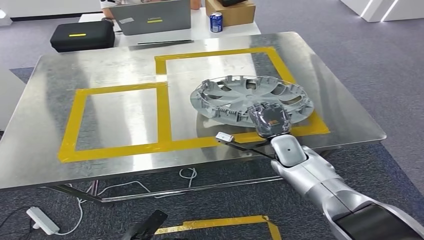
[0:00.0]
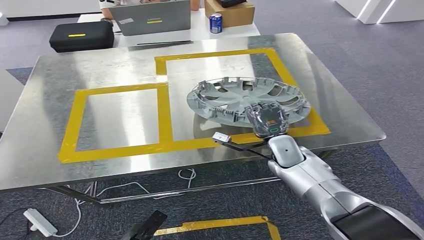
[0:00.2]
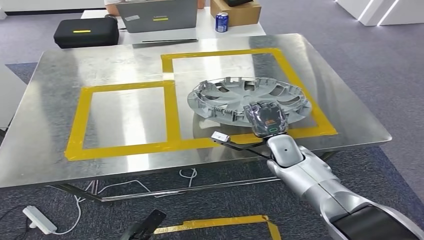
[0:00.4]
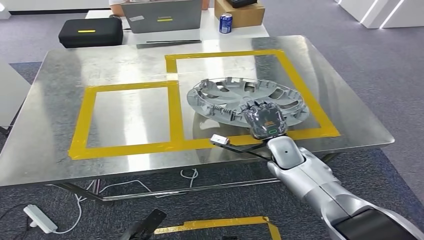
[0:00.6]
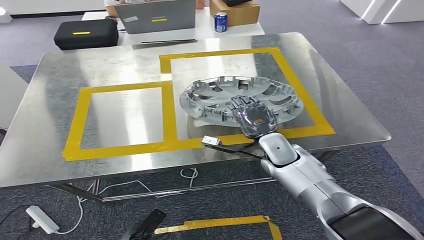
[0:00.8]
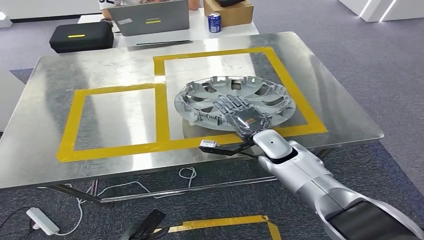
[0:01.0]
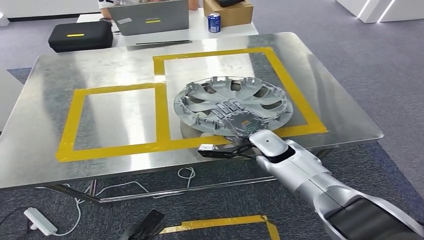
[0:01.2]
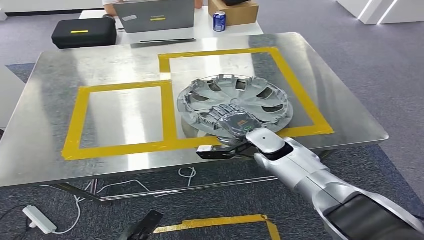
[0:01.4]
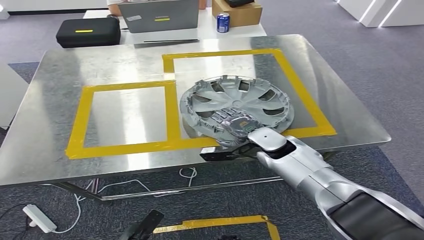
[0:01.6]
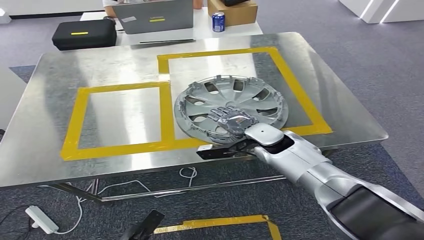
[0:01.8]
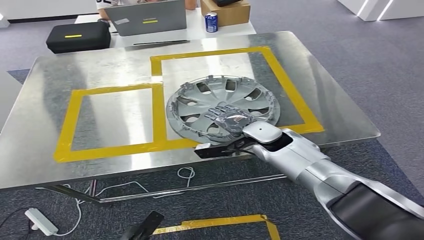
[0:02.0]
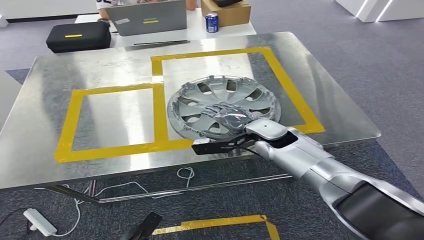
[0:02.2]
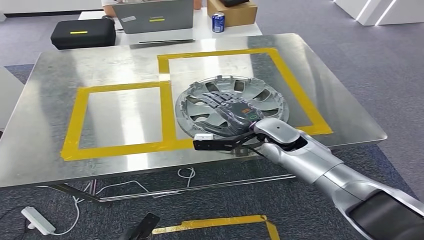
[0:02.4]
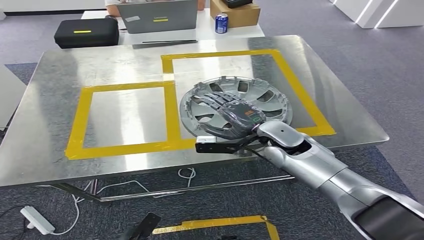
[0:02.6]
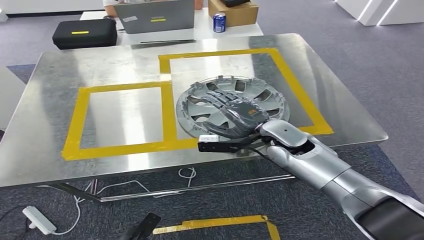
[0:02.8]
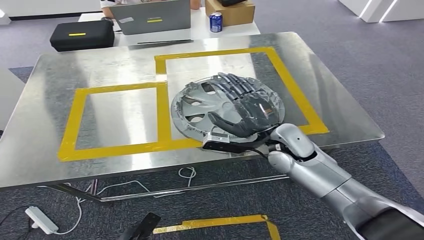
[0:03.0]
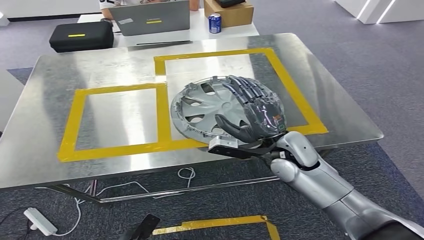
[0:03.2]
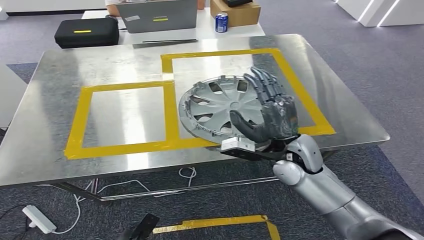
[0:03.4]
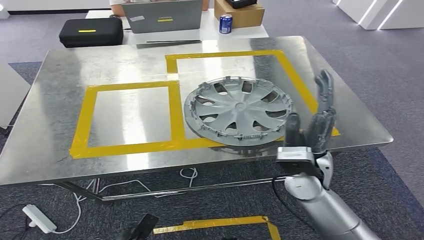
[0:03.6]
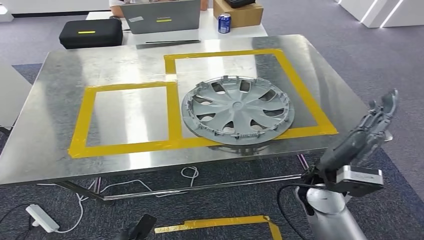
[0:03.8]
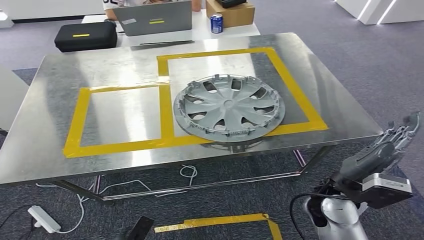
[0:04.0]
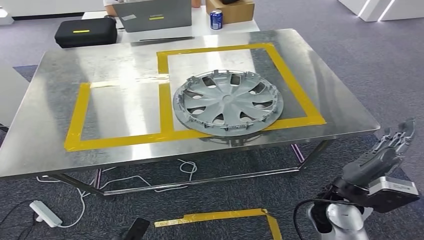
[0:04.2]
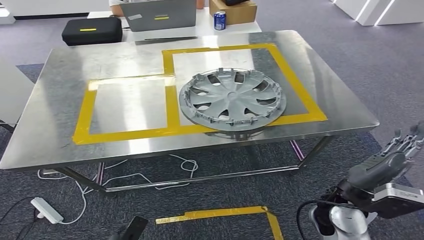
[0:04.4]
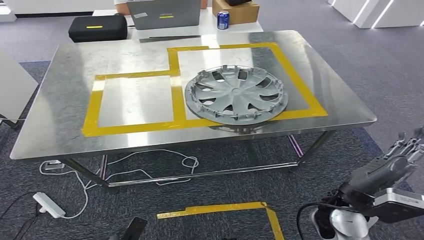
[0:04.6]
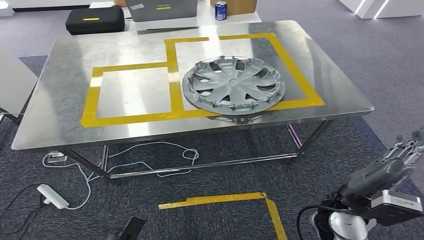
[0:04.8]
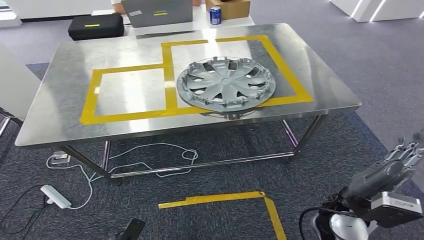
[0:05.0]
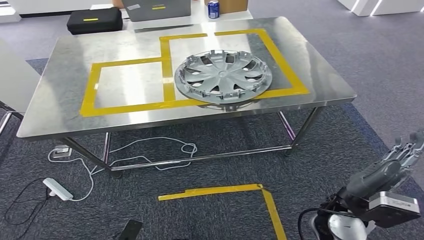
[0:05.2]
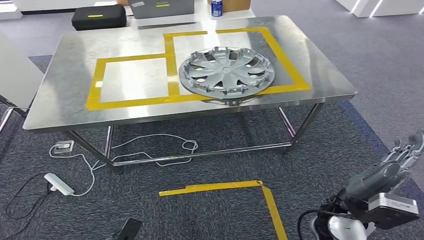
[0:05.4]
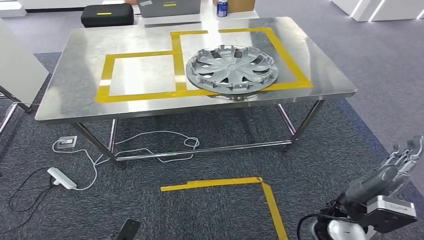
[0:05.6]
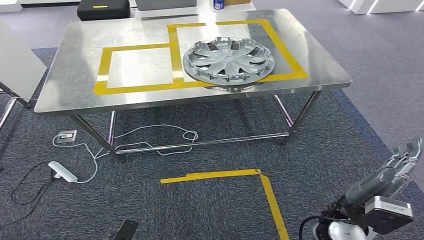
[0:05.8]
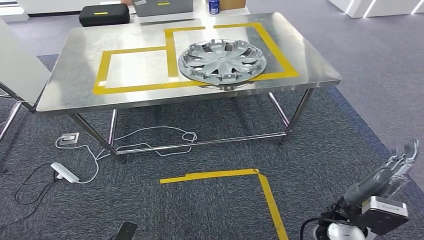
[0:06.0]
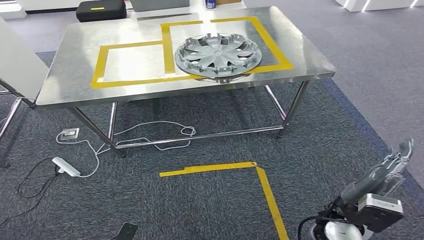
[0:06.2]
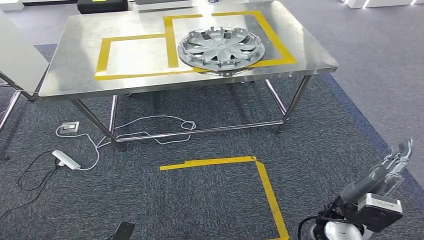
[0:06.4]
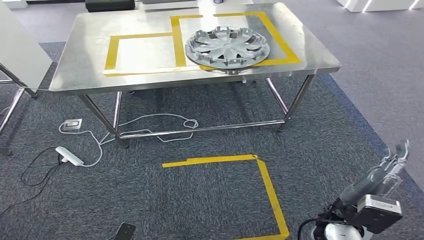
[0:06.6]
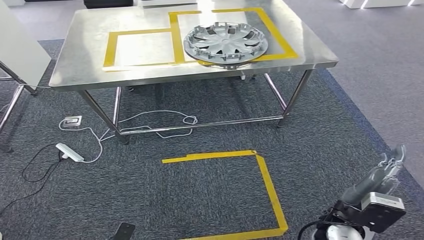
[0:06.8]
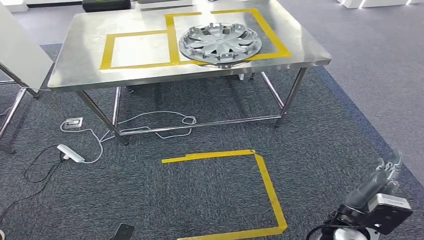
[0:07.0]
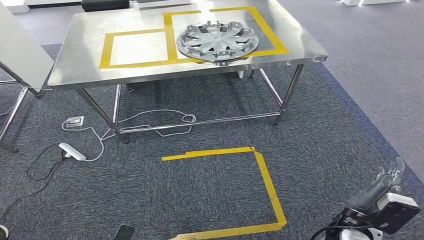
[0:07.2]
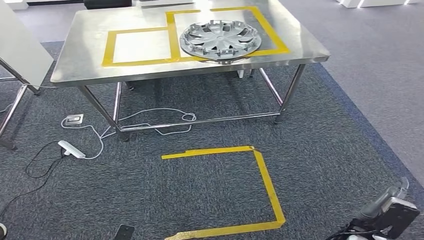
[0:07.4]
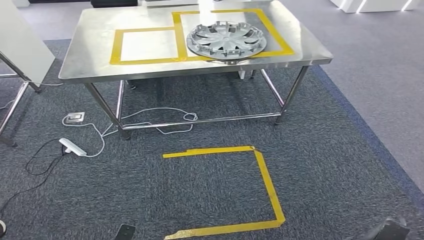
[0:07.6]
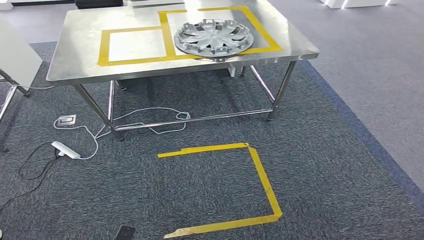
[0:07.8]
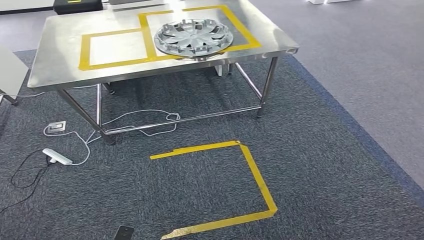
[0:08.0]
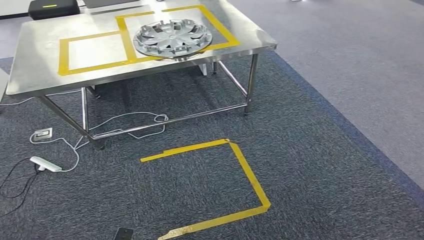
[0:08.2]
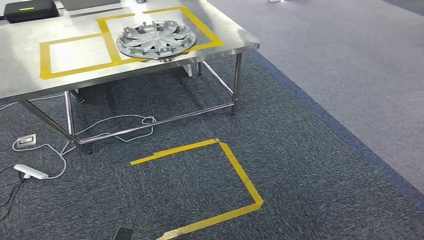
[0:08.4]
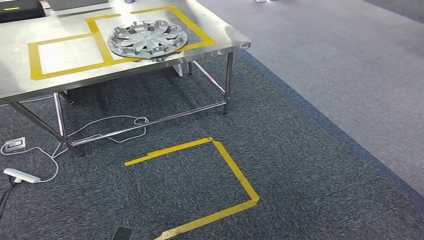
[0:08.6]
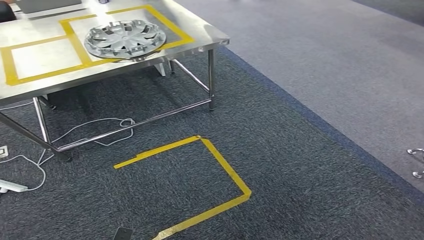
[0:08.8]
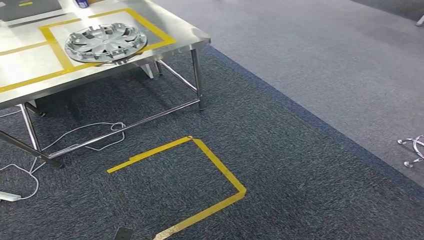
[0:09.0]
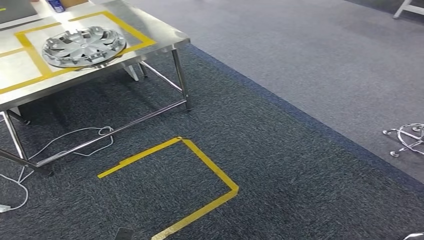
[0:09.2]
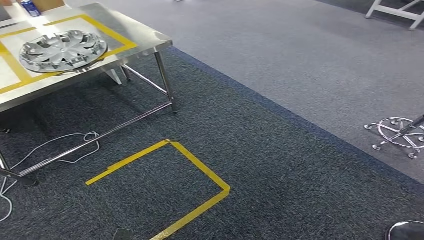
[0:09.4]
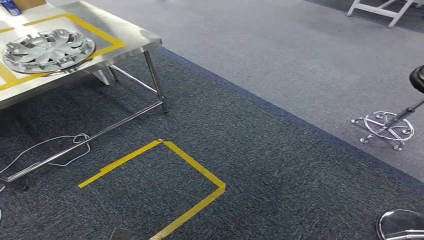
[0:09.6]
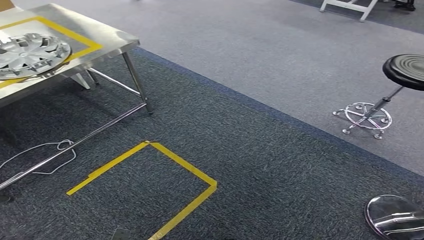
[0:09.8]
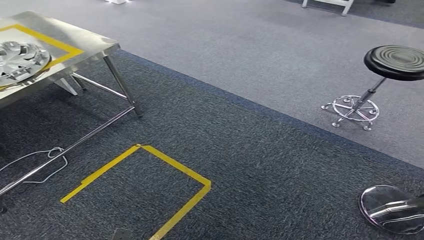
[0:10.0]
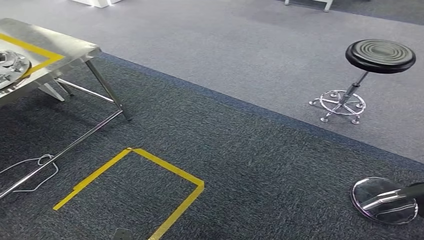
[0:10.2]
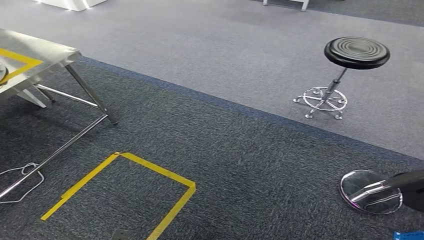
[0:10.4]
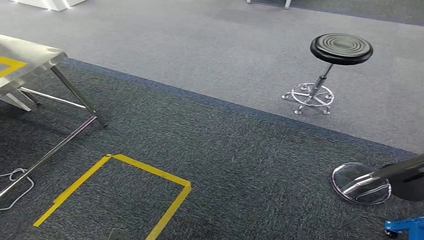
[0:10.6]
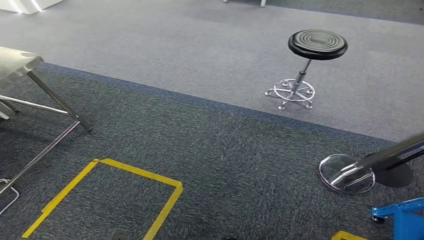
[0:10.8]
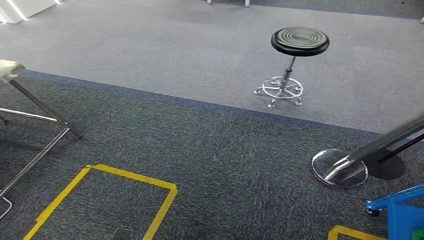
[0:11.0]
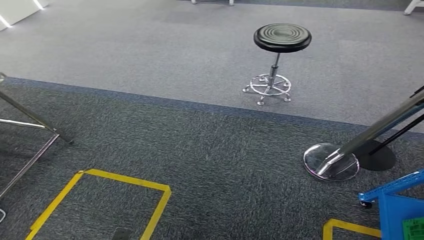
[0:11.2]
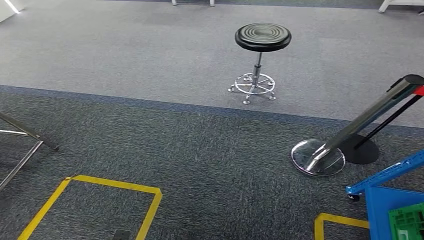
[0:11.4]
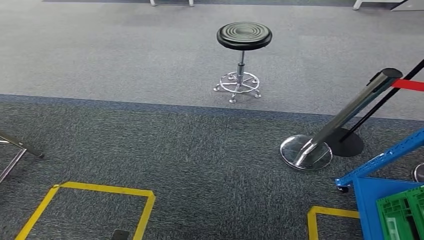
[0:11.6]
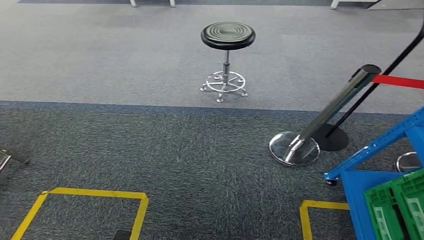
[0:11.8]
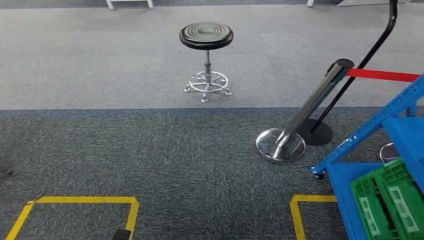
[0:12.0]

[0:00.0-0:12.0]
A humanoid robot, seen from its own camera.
Step, 0:00.0 to 0:06.0: Insert the small component into the corresponding slot on the workbench.

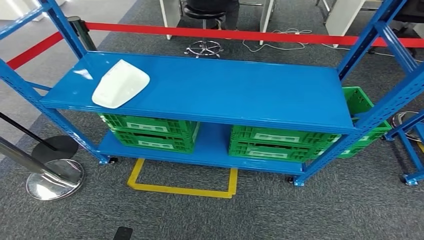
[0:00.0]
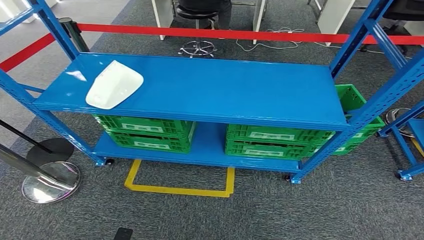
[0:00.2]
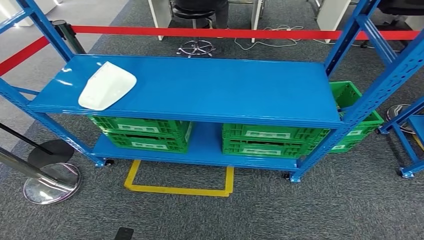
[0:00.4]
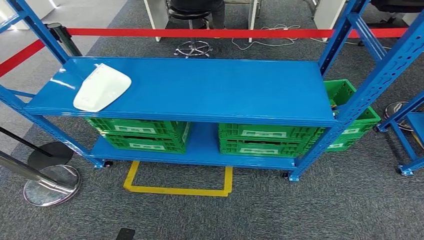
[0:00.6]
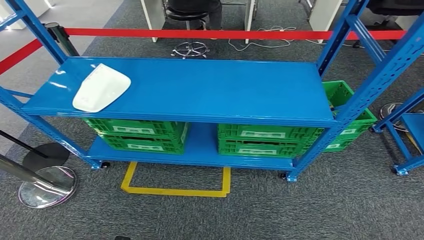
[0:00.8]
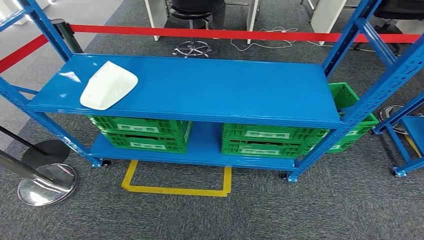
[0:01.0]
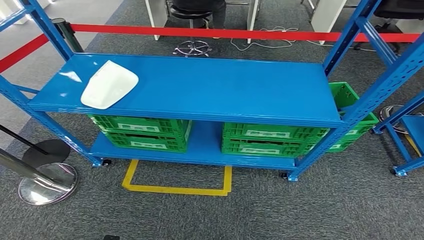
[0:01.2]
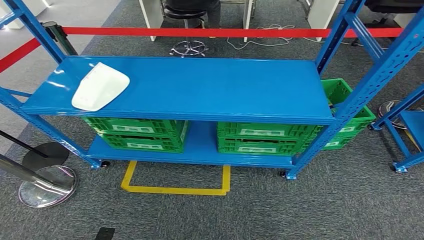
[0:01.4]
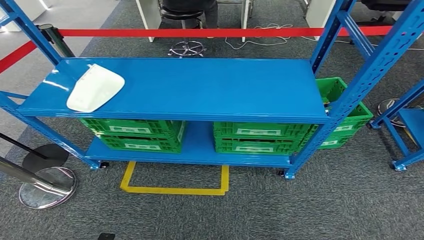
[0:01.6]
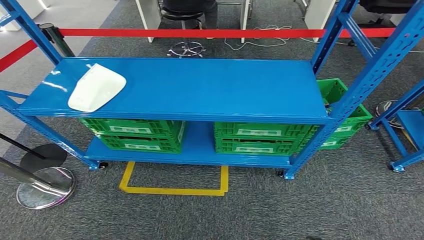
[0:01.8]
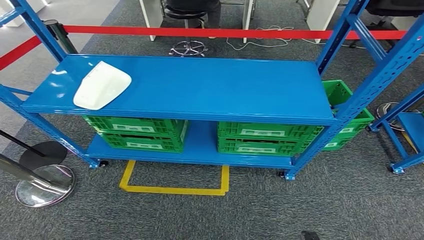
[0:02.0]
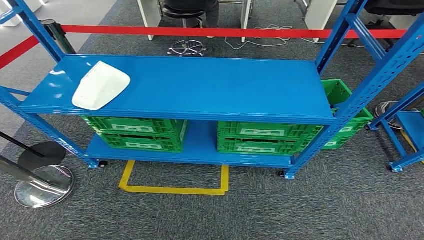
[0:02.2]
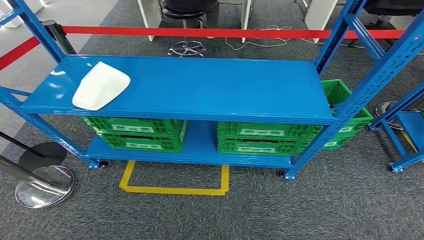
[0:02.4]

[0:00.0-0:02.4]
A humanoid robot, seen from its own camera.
Step, 0:00.0 to 0:02.2: Return to the initial position at the workbench.
